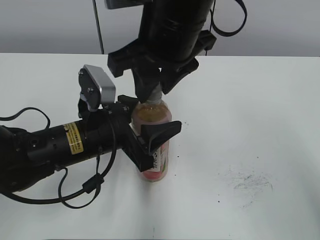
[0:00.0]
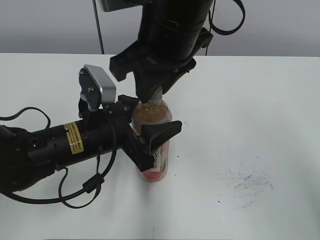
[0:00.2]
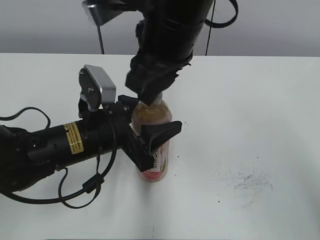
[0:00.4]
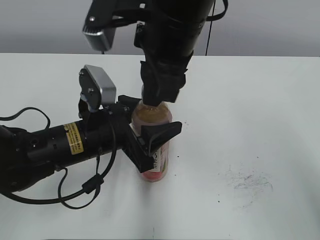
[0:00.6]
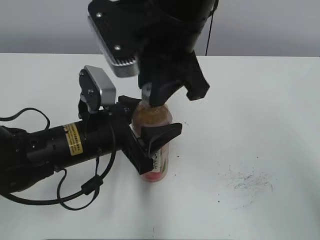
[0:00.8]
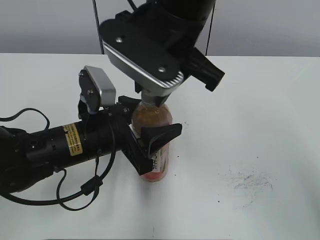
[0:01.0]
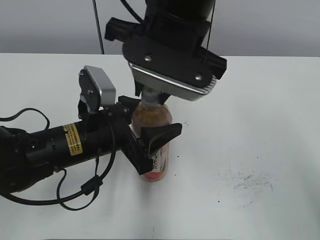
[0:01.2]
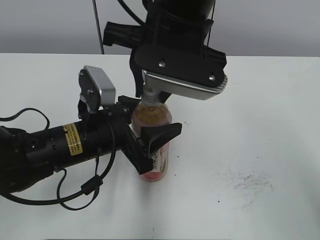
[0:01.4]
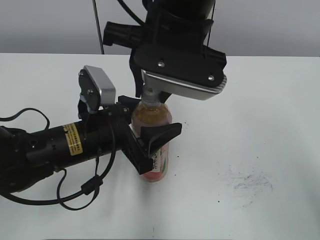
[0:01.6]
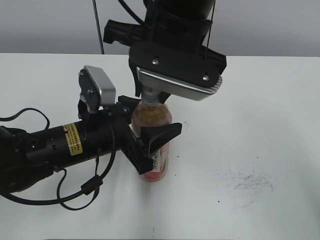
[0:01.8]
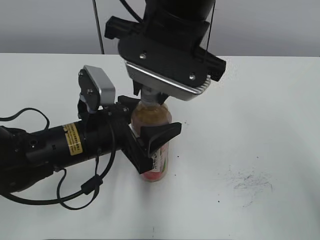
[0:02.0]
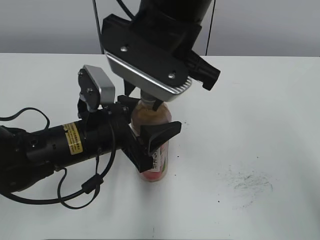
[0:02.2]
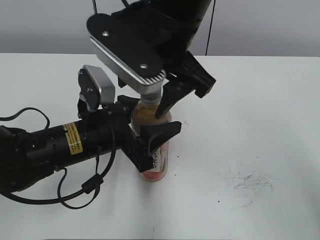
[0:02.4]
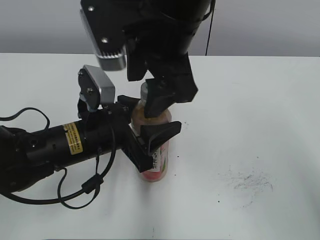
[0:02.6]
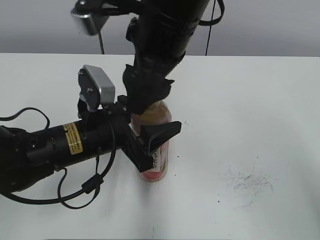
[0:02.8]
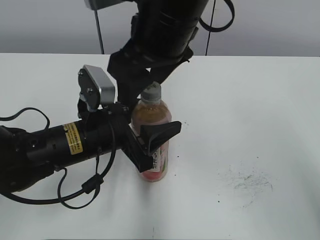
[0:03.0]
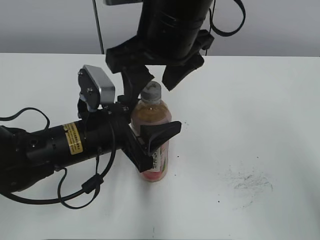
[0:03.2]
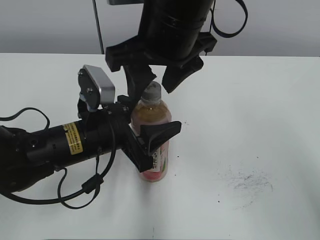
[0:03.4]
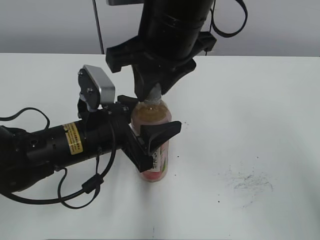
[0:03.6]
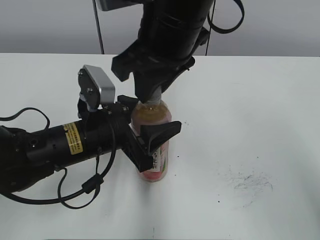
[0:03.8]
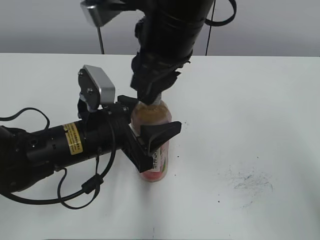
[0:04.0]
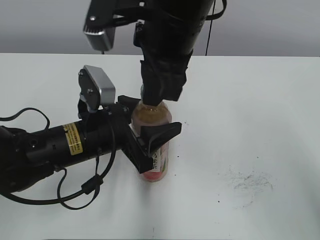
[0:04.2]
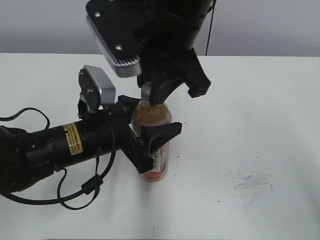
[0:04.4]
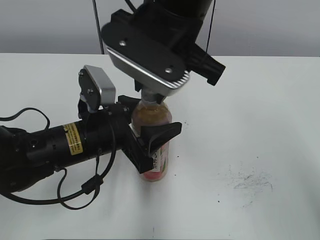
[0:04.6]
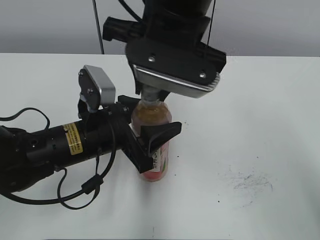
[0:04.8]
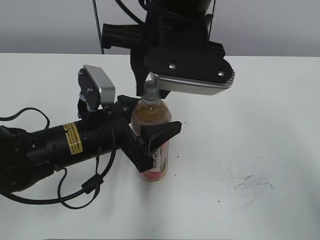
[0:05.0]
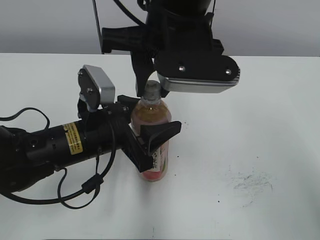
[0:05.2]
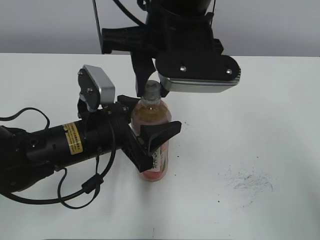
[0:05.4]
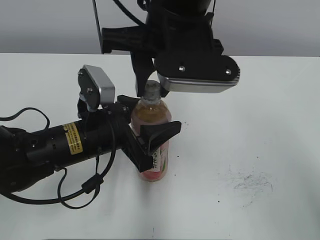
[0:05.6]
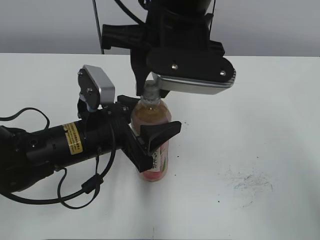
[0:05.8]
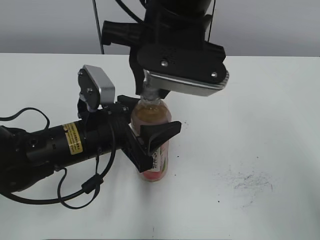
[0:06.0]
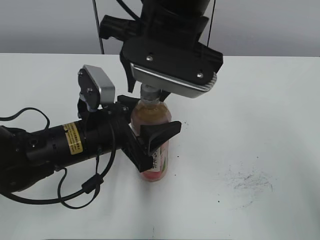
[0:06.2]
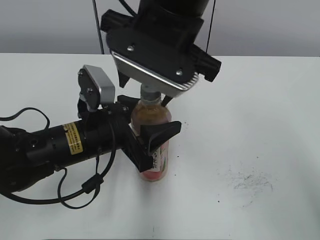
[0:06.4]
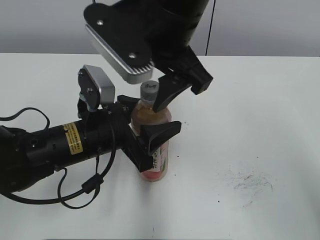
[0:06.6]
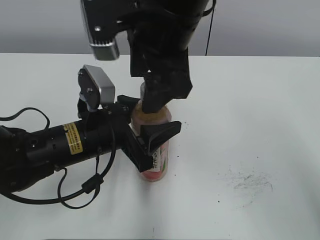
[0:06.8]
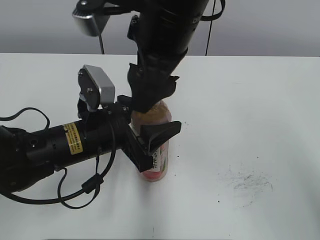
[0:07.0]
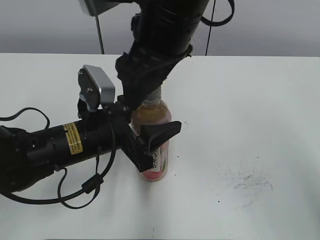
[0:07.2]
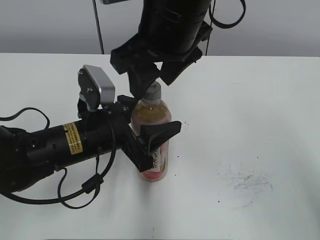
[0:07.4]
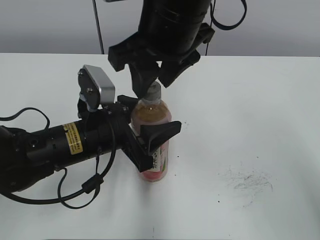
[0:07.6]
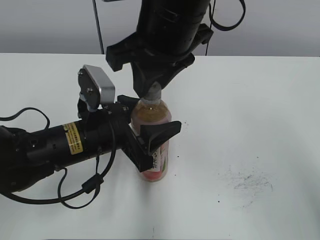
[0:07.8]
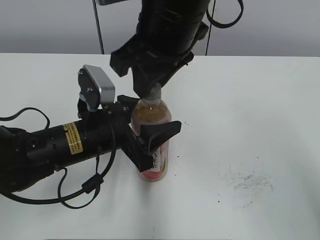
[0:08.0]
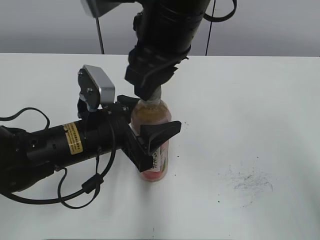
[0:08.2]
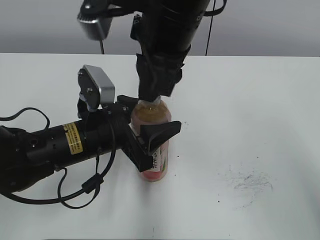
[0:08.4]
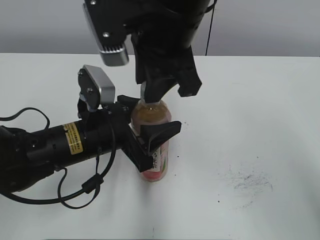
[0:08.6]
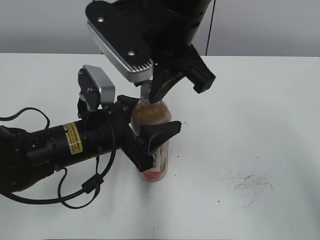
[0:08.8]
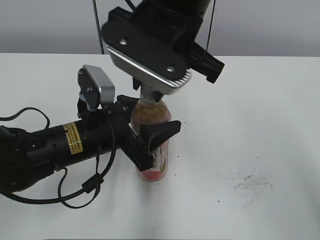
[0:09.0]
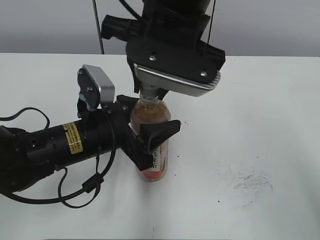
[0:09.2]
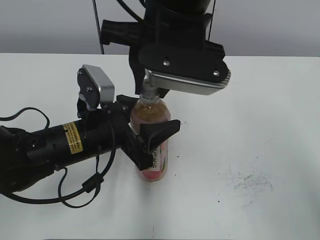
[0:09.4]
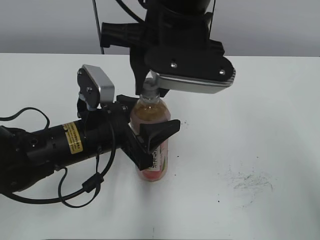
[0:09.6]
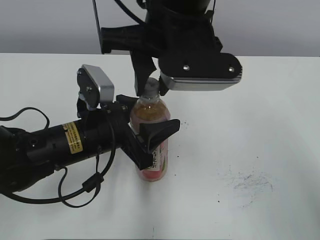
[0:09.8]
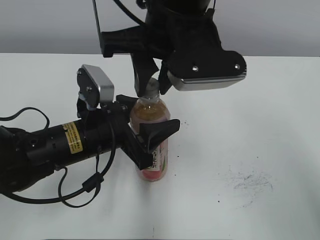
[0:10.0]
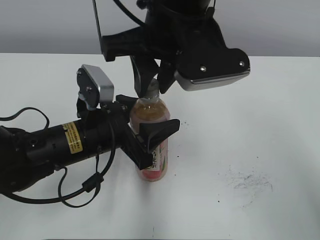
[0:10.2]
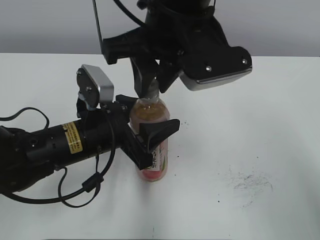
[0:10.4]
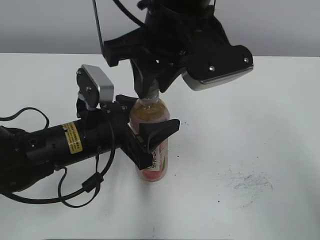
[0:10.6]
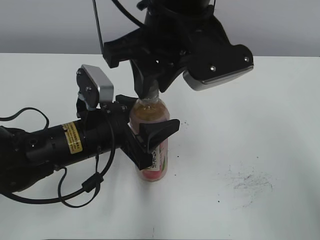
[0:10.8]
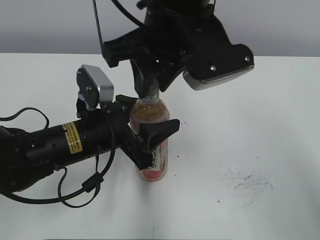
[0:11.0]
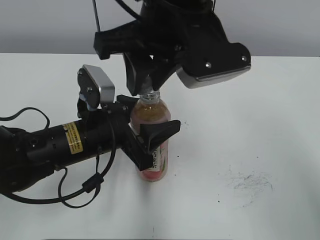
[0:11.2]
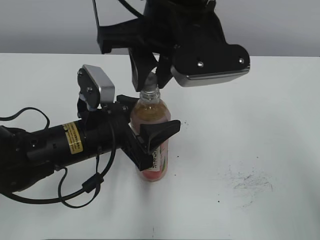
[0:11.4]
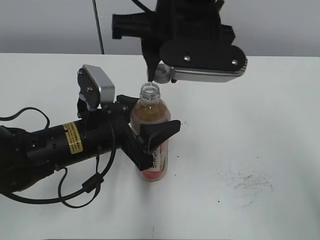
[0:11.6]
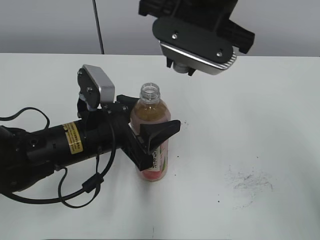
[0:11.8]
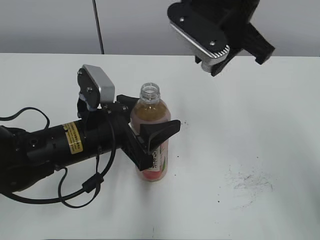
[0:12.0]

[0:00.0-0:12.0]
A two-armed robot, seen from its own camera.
0:01.6 to 0:03.0: The right gripper opens.
0:03.0 to 0:04.4: The right gripper closes its fingers.
0:06.0 to 0:07.6: The right gripper opens.
0:07.6 to 0:09.0: The right gripper closes its fingers.
0:10.4 to 0:12.0: The right gripper is displaced to the right and forward by about 10 cm.

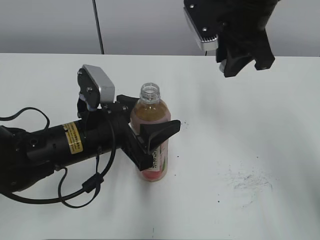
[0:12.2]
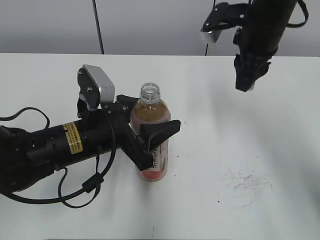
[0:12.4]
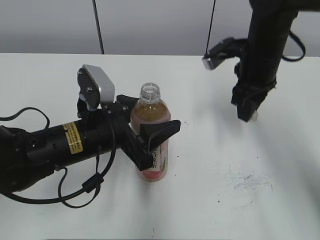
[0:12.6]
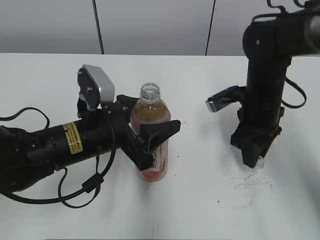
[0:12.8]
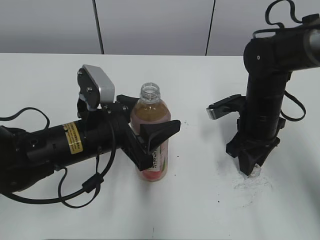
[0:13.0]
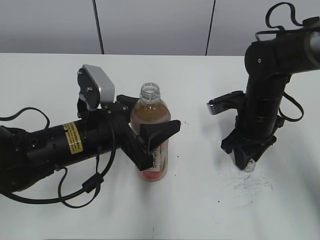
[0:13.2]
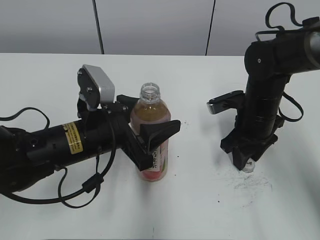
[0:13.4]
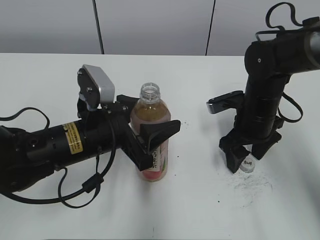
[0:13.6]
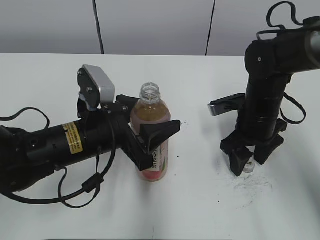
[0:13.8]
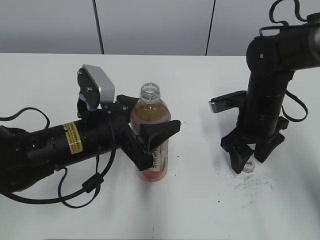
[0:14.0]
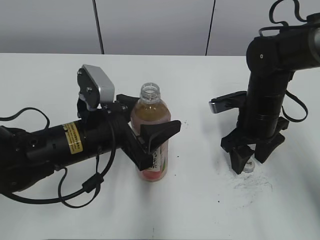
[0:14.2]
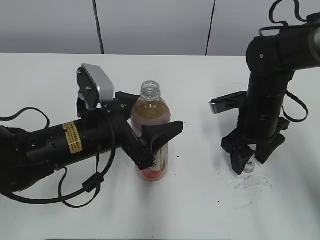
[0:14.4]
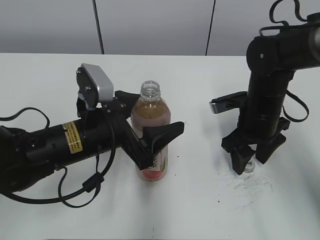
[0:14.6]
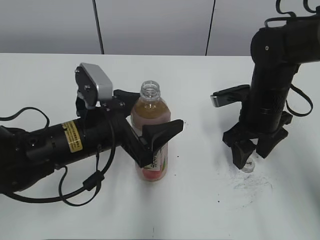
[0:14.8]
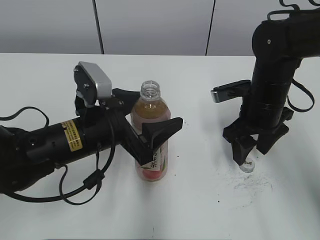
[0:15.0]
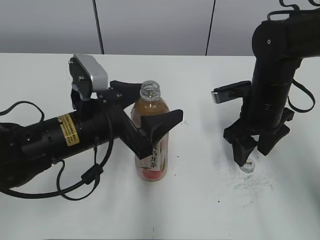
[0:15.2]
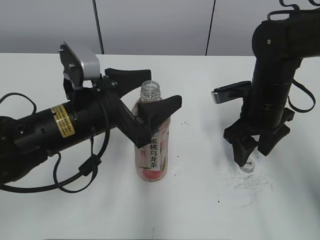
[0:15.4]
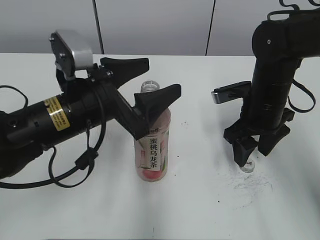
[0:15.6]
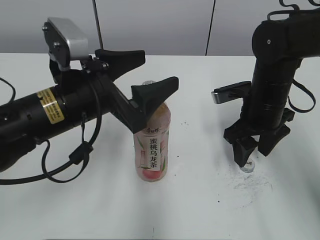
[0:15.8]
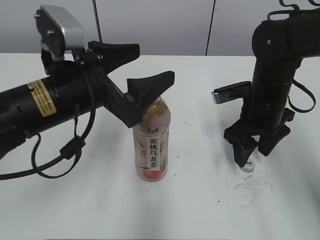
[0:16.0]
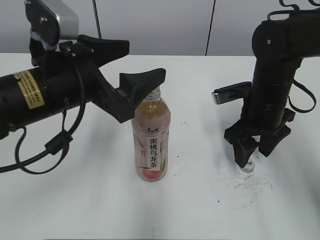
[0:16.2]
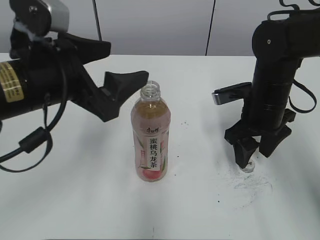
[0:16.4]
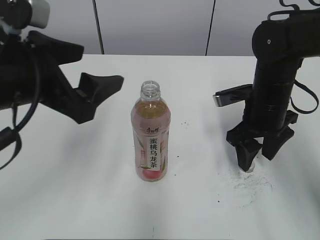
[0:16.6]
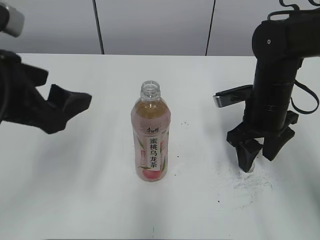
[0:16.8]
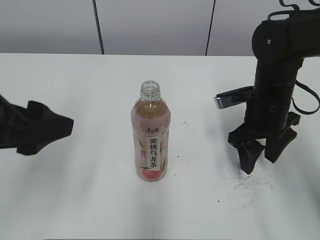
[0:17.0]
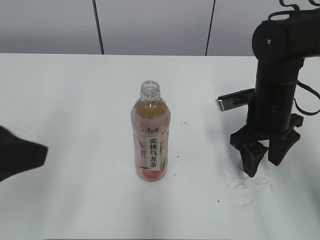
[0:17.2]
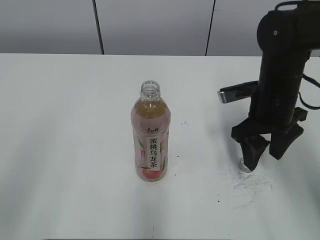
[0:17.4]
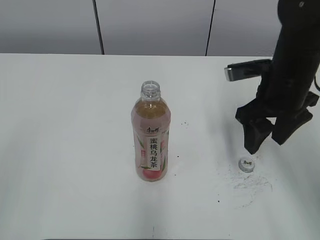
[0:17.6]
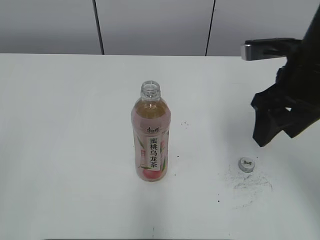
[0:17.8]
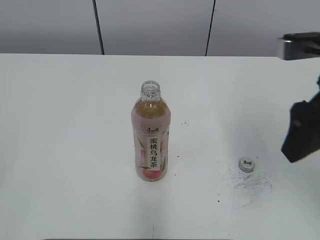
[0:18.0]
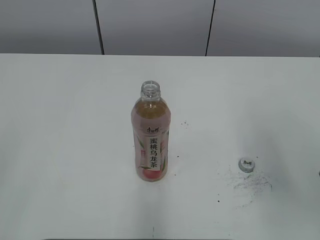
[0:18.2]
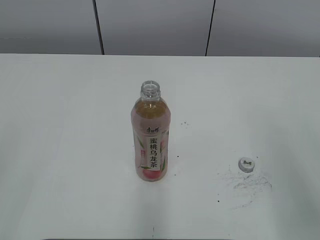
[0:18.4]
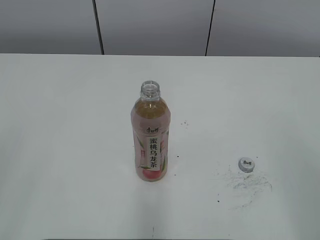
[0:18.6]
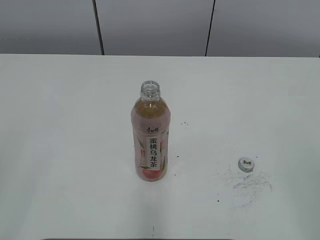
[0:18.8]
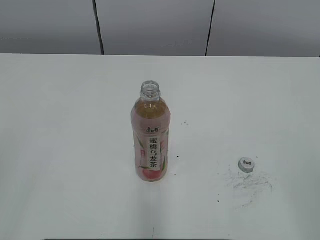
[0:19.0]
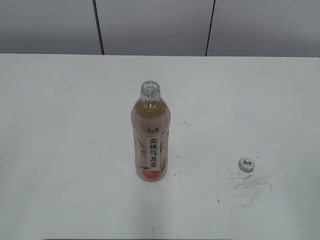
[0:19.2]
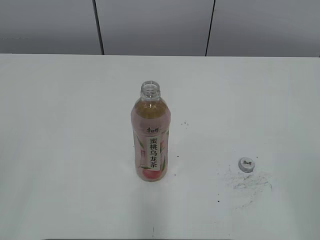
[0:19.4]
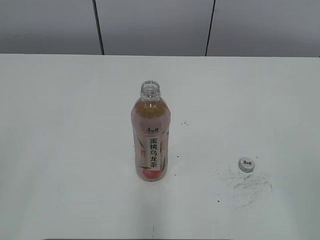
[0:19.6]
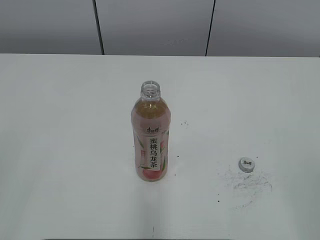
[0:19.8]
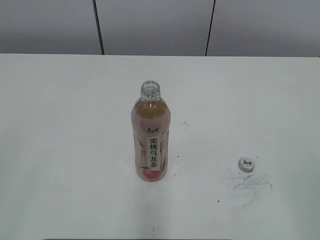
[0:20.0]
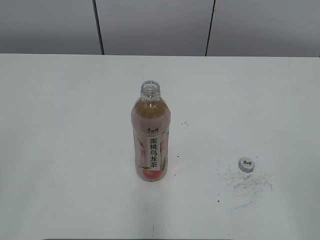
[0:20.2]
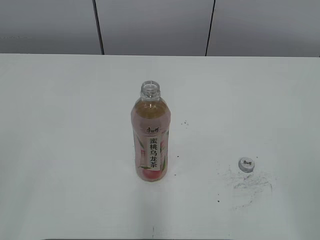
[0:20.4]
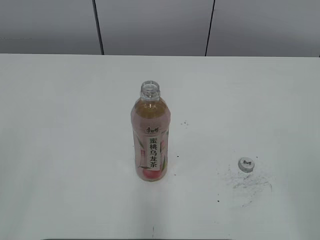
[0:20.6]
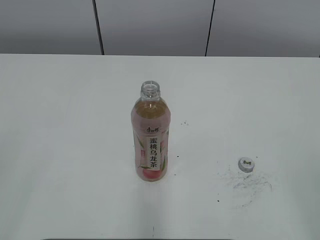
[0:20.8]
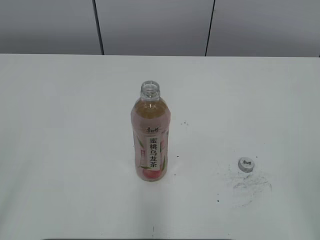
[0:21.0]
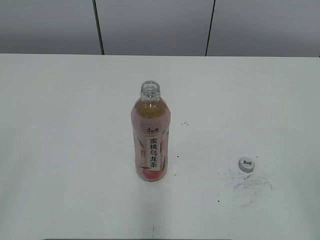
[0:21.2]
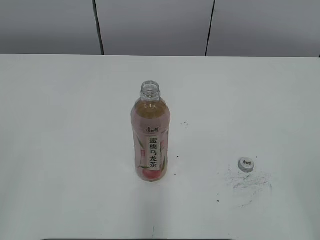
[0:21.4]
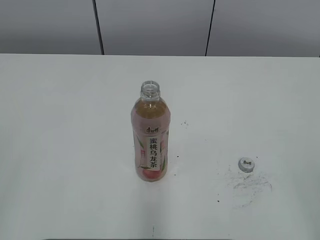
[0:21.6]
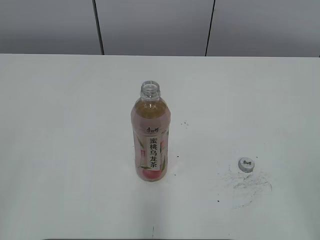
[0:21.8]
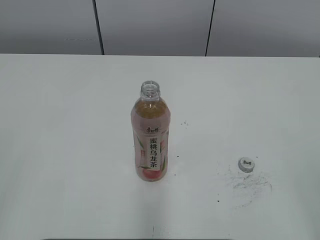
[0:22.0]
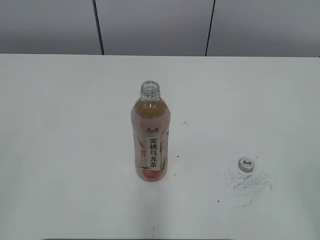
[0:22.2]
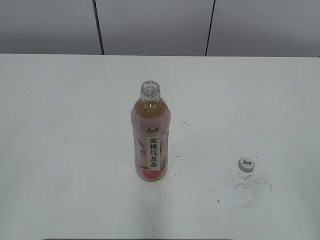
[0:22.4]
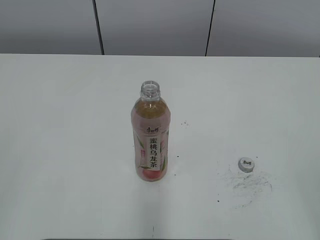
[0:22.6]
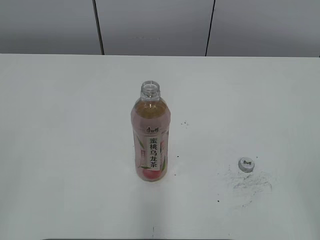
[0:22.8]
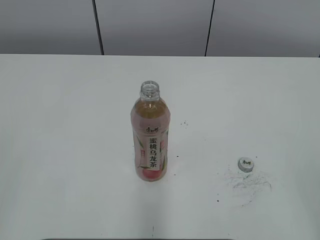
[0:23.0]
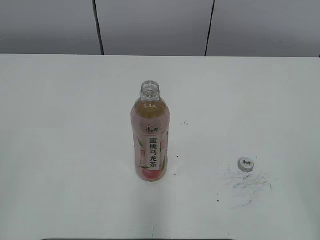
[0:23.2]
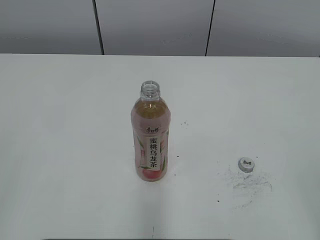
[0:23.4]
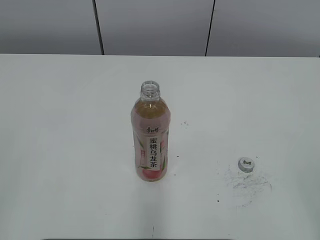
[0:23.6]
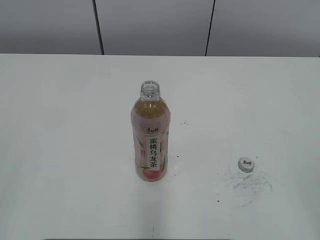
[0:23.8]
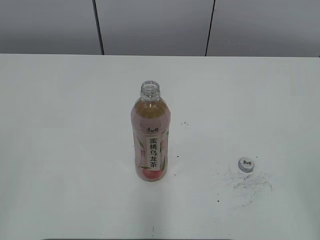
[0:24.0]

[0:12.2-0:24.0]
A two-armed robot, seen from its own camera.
Step, 0:12.2 to 0:13.8: Place the bottle cap on the right.
Step, 0:14.0 to 0:15.4: Place the Peach Oolong Tea with the left hand.
0:12.2 to 0:13.6: The right gripper is displaced downward by roughly 20 cm, and opens up.
0:13.6 to 0:15.2: The left gripper opens its fingers.
0:15.2 to 0:16.6: The left gripper is displaced upward and to the left by some 10 cm.
0:16.6 to 0:18.2: The right gripper moves backward and upward, roughly 25 cm. Meanwhile the left gripper travels backward and to the left by roughly 30 cm.
0:18.2 to 0:19.6: The right gripper heads backward, covering some 15 cm.
0:22.6 to 0:24.0: The two grippers keep their place.
